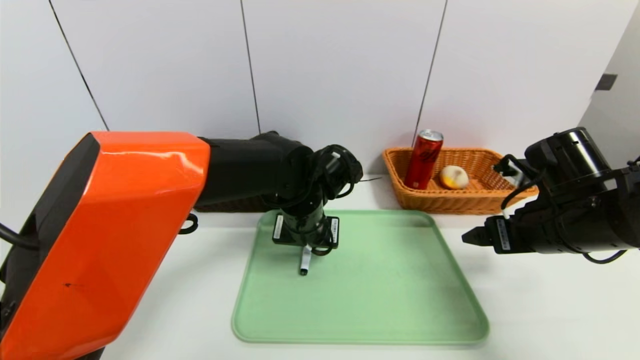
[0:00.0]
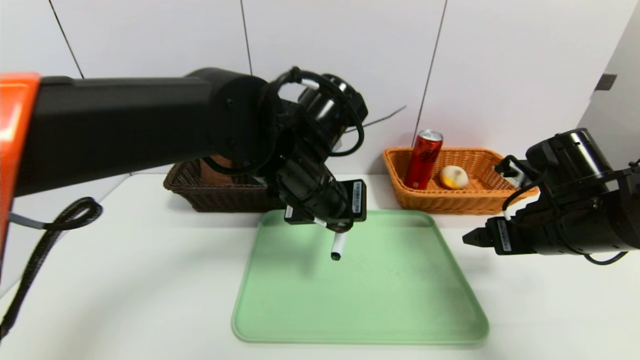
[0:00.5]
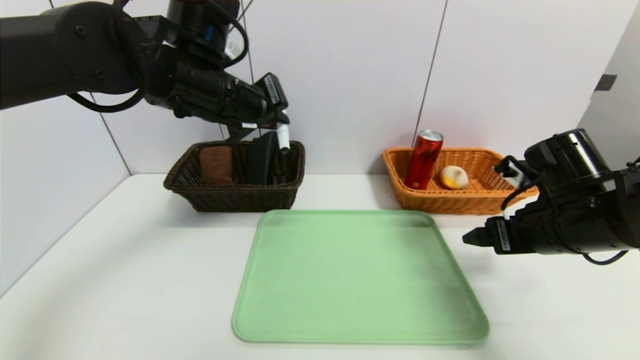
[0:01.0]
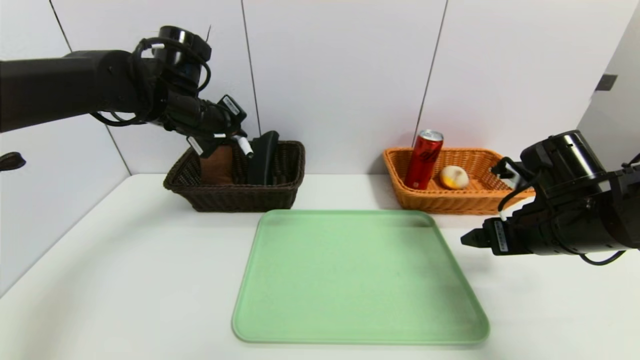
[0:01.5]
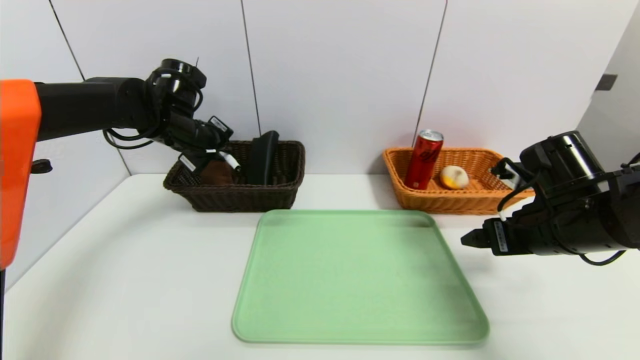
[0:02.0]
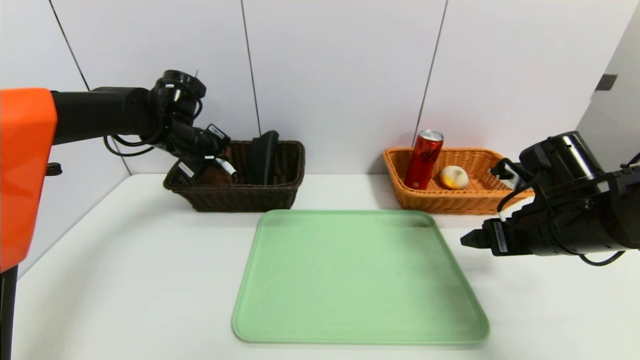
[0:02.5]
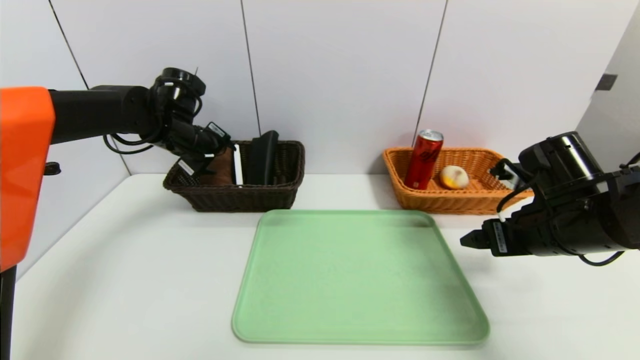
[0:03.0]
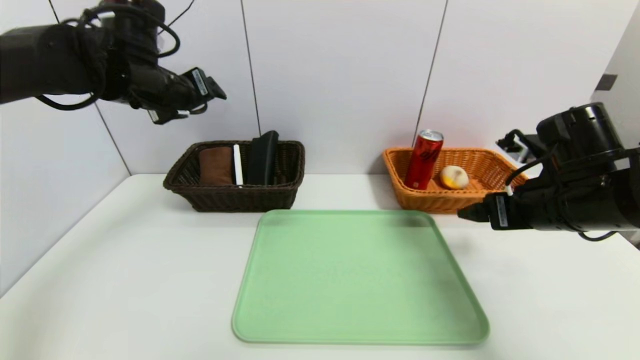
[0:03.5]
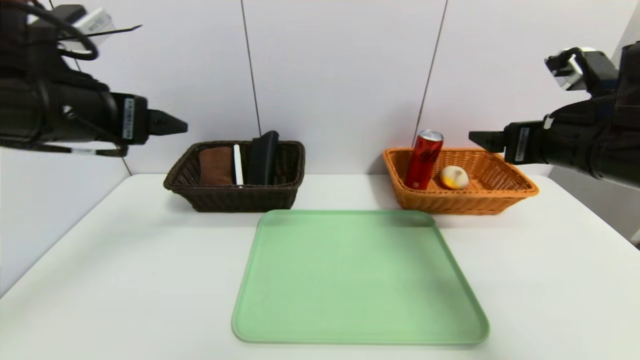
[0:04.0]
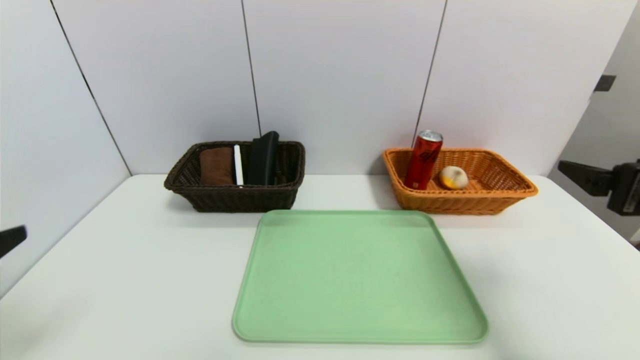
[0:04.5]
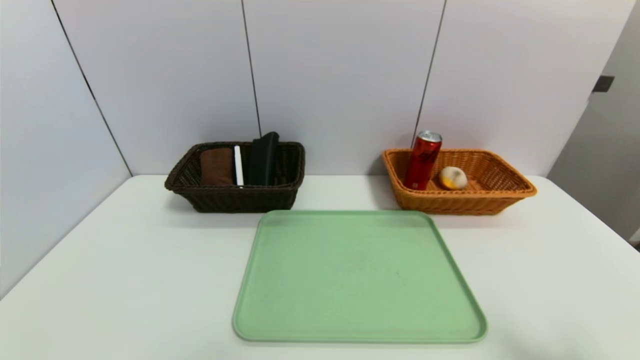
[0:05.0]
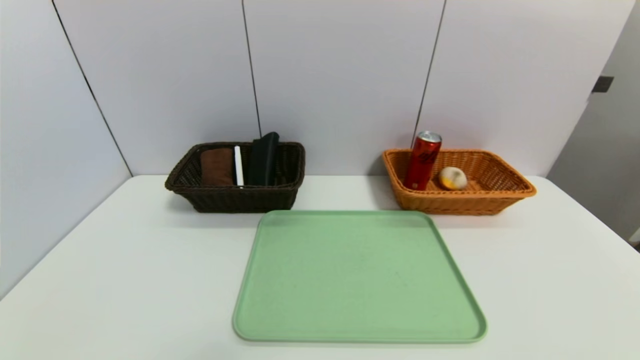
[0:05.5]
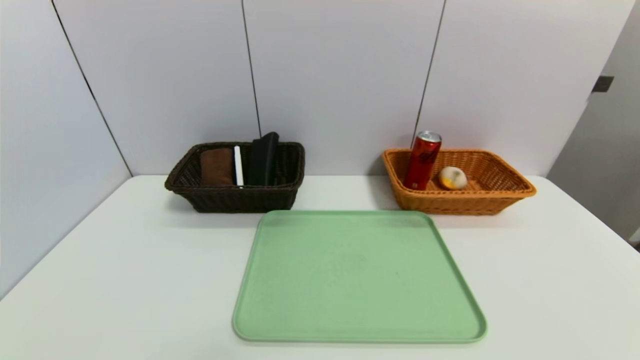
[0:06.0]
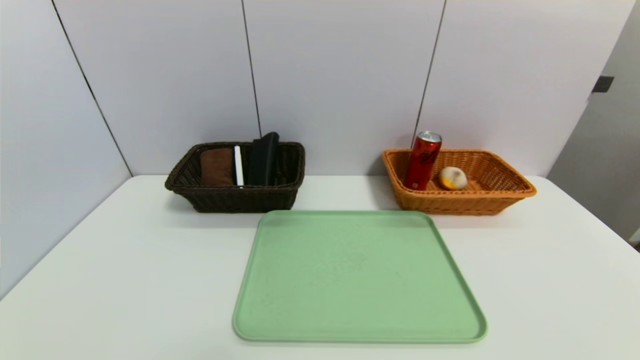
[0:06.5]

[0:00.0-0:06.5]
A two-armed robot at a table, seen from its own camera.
Task of the whole recording: place the food in the right basket with the right gripper, and place the non food items in the left basket with the left gripper.
Step, 0:00.0 to 0:03.0: Grasp the black marker and put it in the left basket.
0:00.0 to 0:02.0: The left gripper is displaced to the left and forward by roughly 25 cm.
0:02.0 to 0:04.5: The right gripper is displaced backward and upward by roughly 10 cm; the left gripper shifts about 35 cm backward, and opens its fingers.
0:04.5 to 0:06.5: The right gripper moves backward and downward, some 25 cm. The left gripper is displaced downward by some 20 cm.
